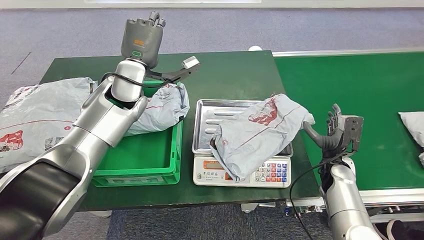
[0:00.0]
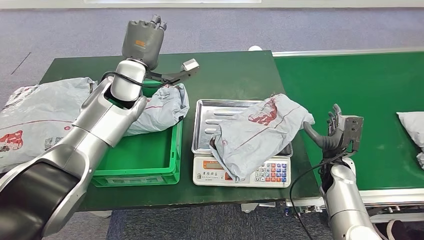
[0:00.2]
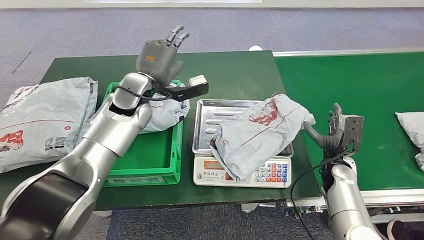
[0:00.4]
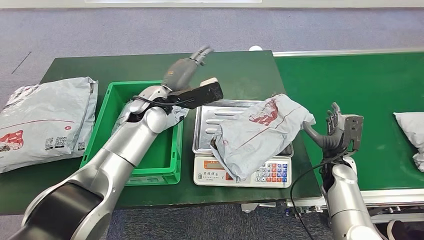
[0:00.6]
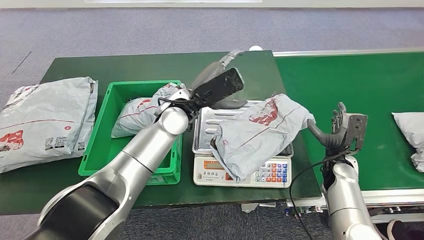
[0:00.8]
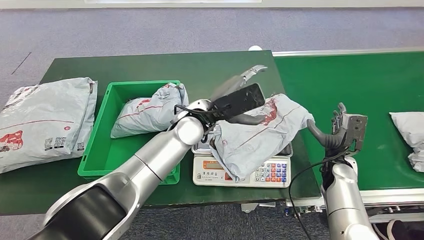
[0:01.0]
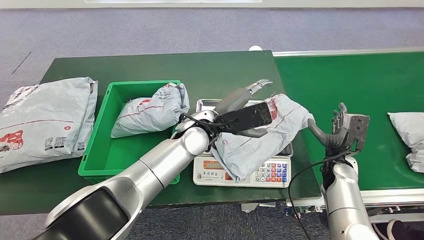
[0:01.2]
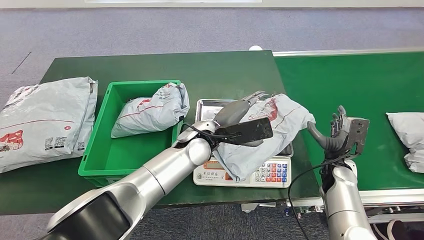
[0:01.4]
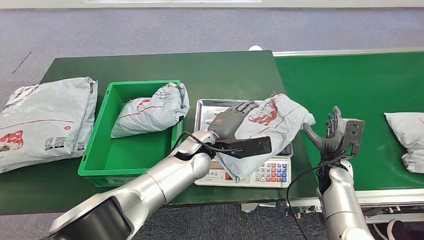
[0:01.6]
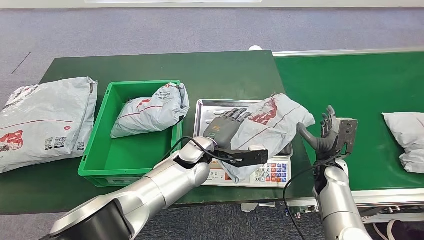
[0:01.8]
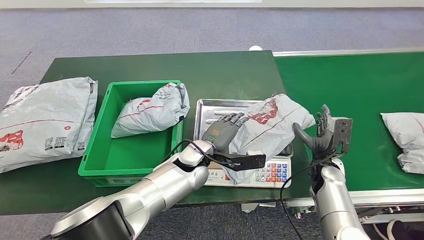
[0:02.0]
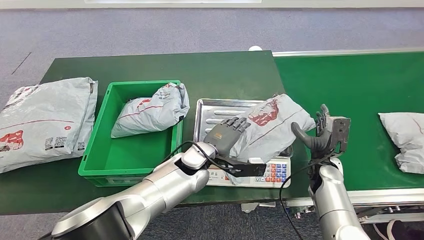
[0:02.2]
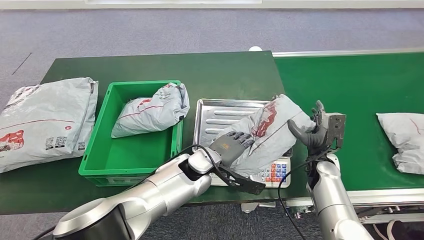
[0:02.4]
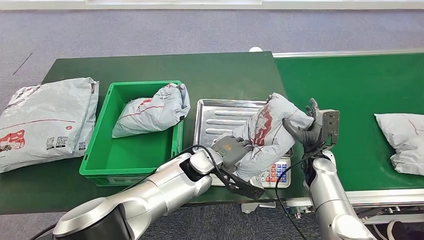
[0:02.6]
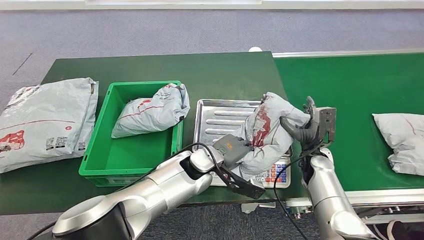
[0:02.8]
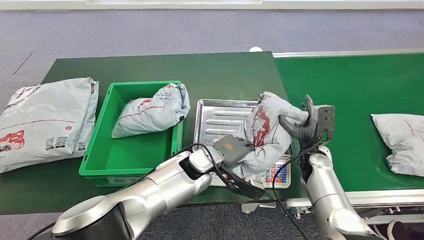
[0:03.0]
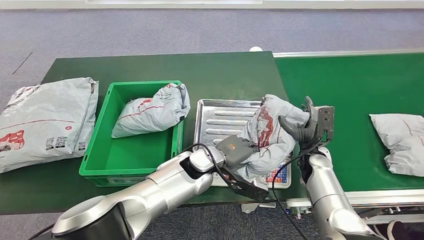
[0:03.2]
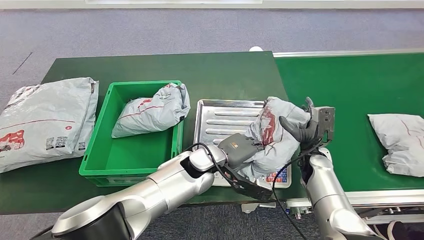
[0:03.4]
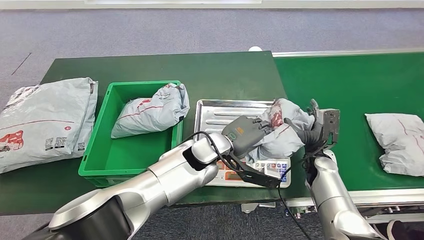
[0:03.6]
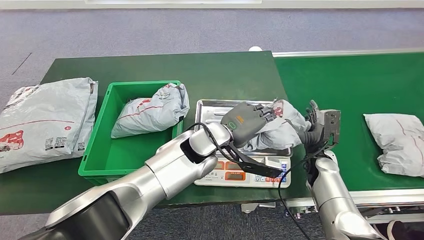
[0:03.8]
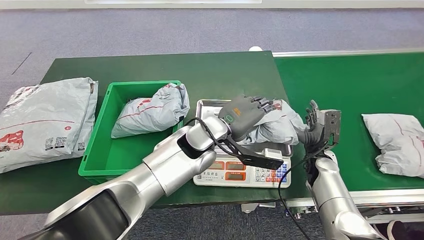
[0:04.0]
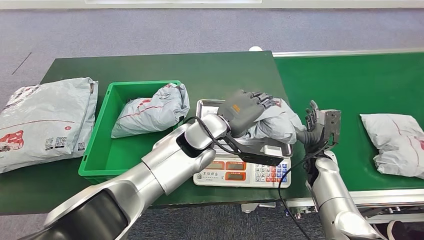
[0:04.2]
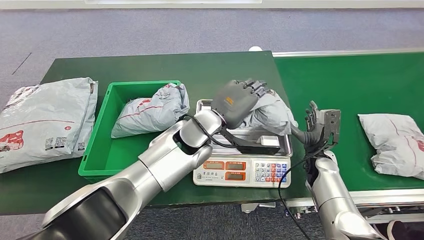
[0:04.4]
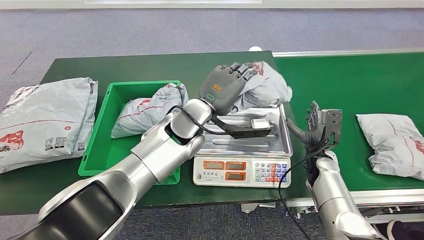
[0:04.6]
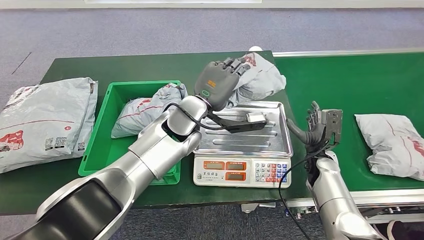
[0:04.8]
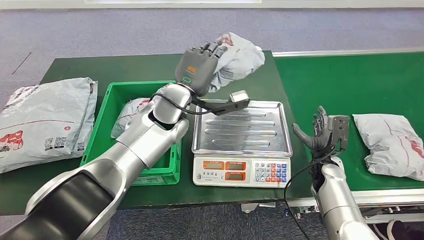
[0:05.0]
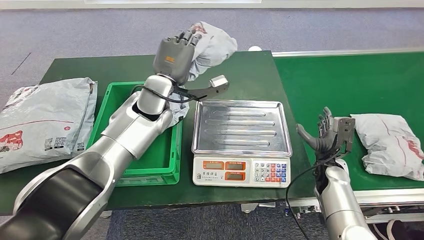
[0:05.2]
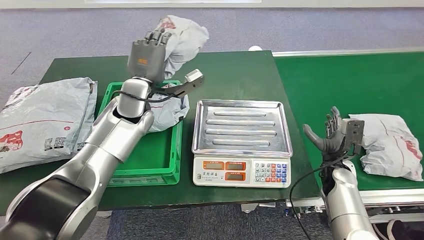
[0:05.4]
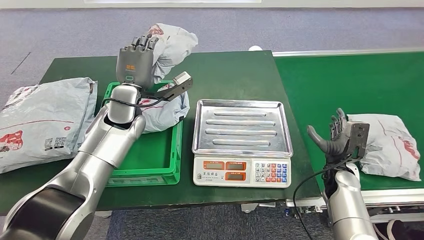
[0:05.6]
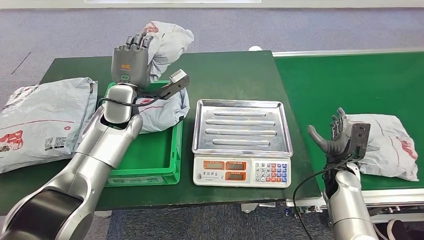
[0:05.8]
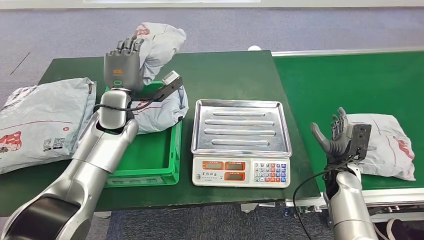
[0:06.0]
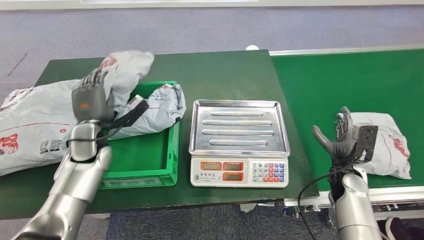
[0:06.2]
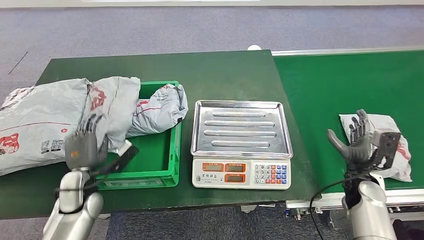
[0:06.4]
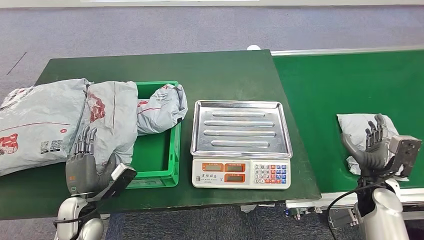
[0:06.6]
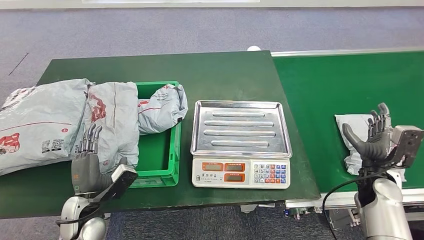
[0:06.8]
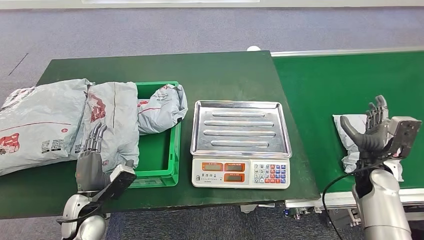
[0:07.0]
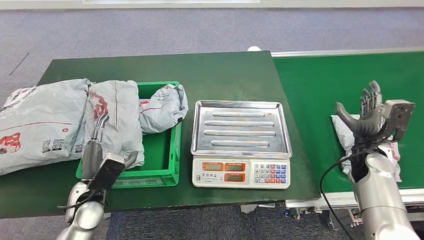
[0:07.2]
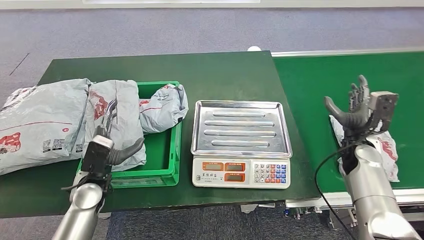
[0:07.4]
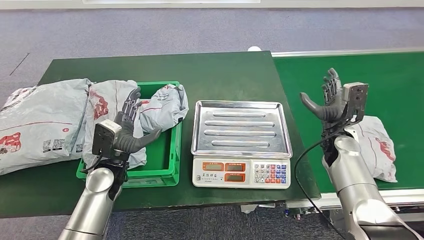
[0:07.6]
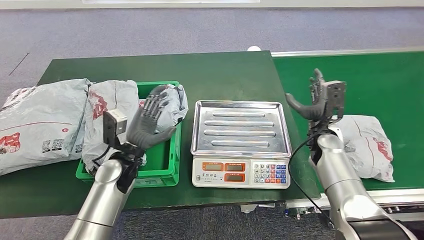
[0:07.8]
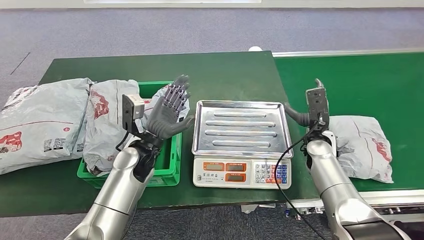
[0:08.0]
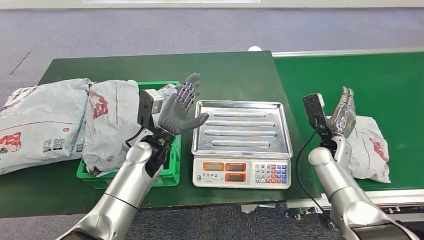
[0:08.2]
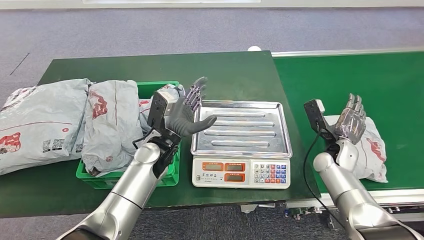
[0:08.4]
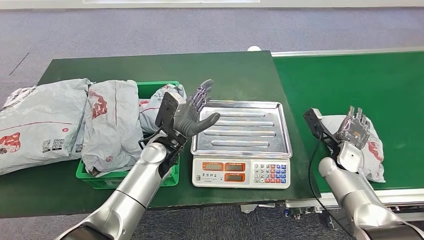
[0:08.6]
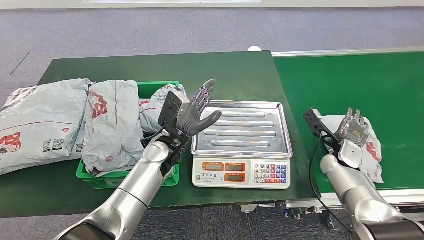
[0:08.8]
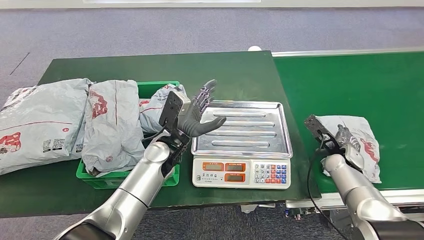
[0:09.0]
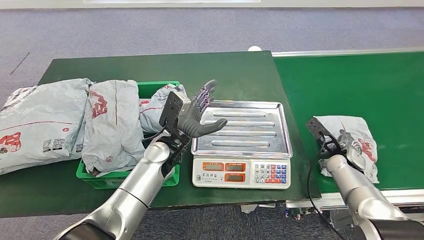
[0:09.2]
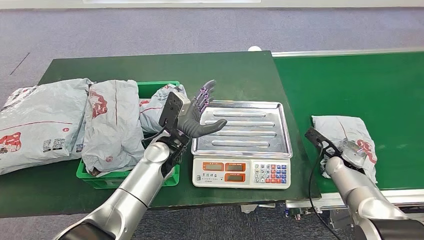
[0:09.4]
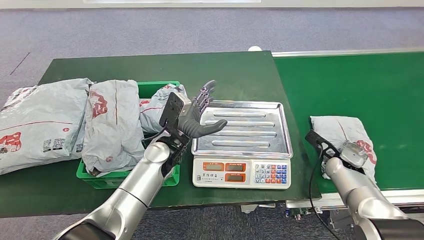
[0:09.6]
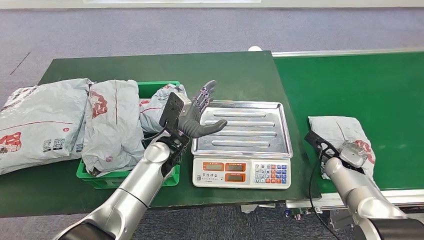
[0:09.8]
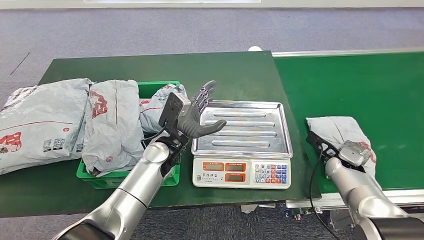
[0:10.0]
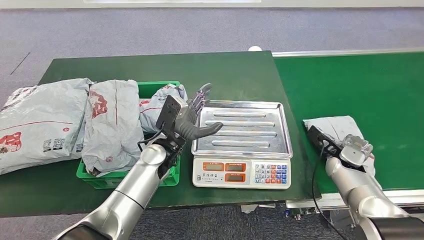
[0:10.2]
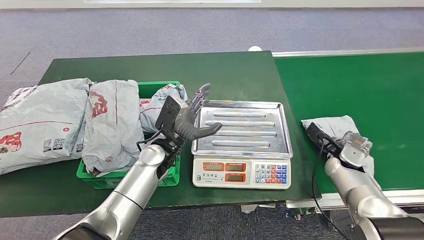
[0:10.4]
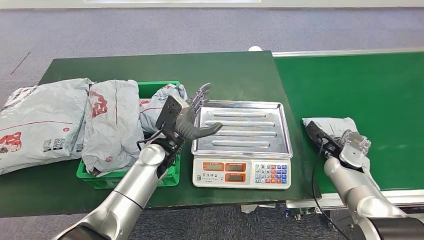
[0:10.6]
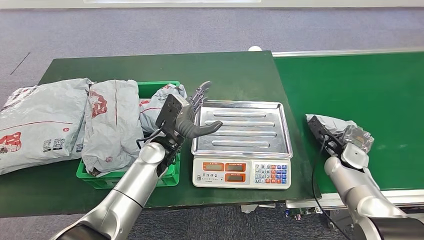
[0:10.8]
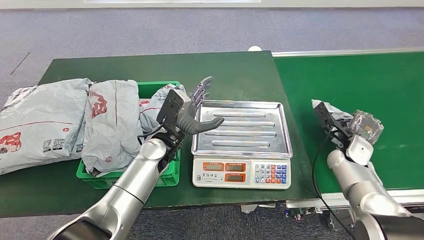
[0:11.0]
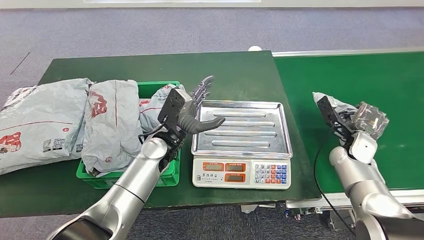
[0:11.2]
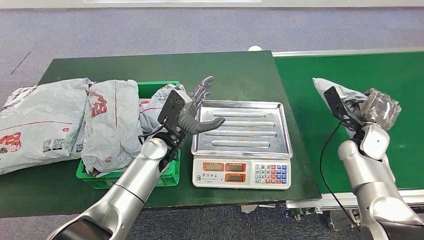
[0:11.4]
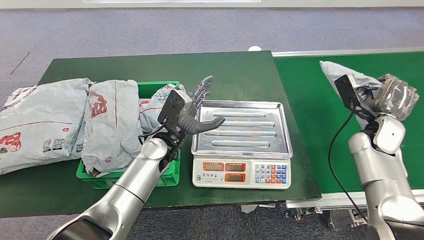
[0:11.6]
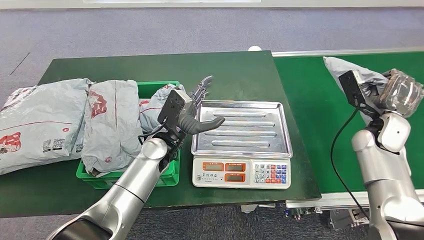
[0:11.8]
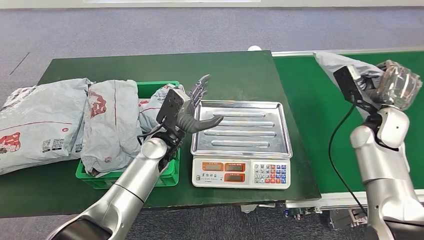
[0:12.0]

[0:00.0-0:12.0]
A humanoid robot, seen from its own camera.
Step, 0:02.0 to 0:04.6: Pick up the parcel from the inbound machine.
Step, 0:04.8 to 0:07.8: Place the parcel into the delivery box.
Step, 0:10.2 to 0:11.8: Pick up the parcel from the conveyor belt.
0:07.6 to 0:09.0: The left hand goes approximately 15 cm to the right, while the right hand heads downward, covering about 5 cm.
0:10.4 to 0:12.0: The right hand shifts about 15 cm upward.

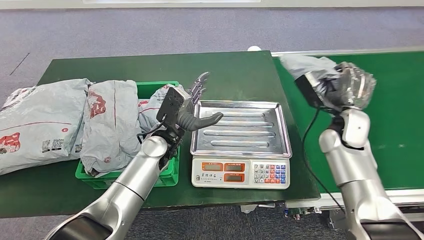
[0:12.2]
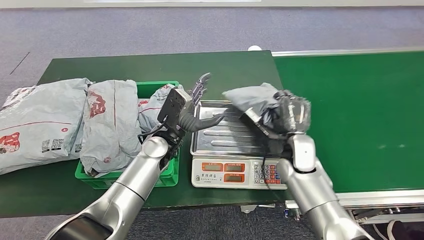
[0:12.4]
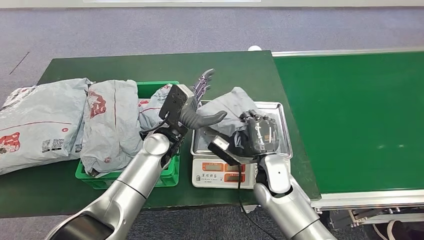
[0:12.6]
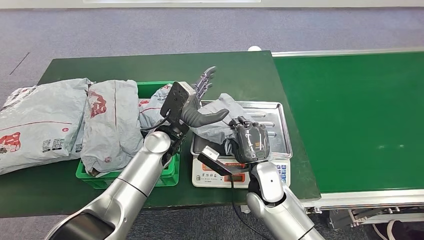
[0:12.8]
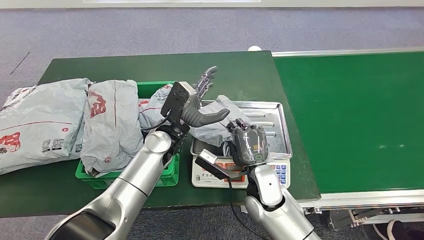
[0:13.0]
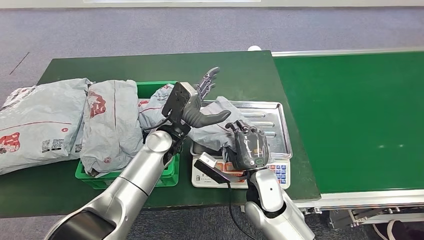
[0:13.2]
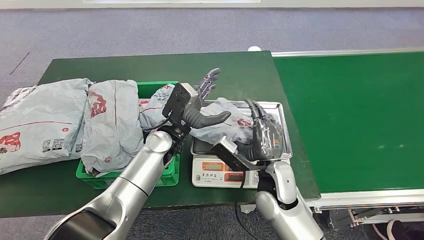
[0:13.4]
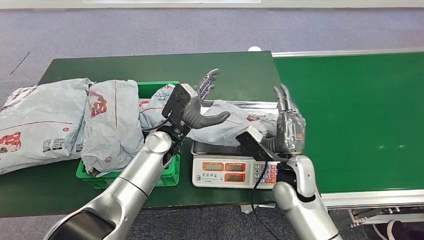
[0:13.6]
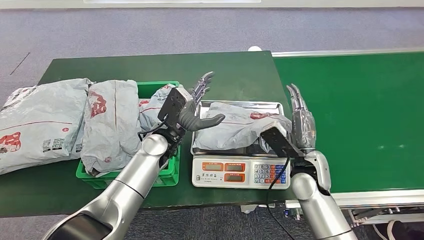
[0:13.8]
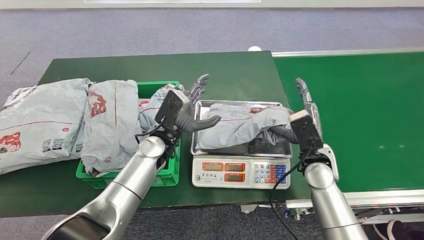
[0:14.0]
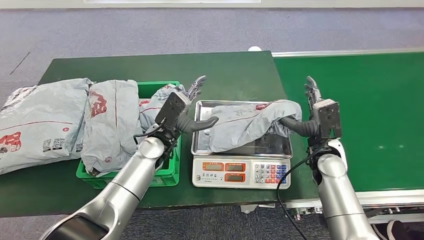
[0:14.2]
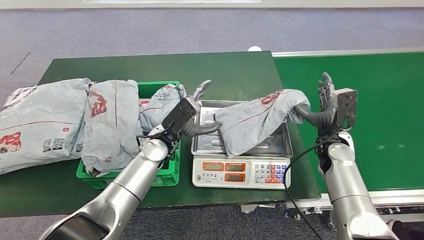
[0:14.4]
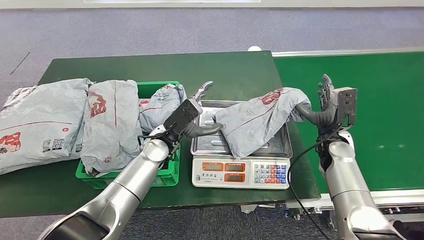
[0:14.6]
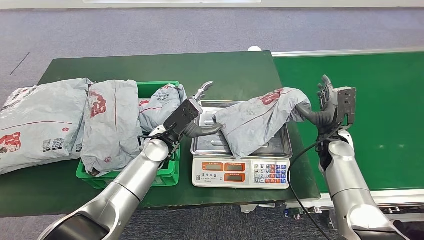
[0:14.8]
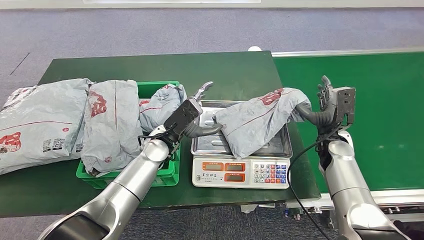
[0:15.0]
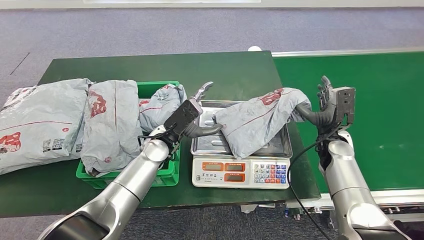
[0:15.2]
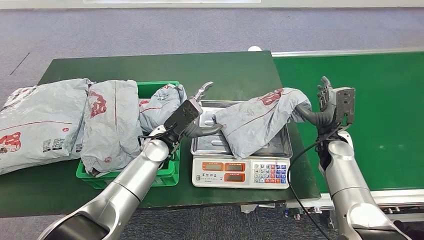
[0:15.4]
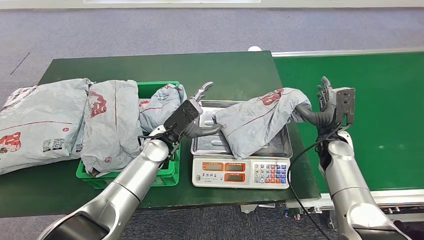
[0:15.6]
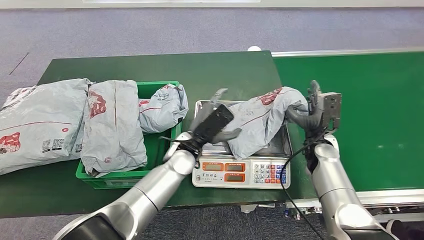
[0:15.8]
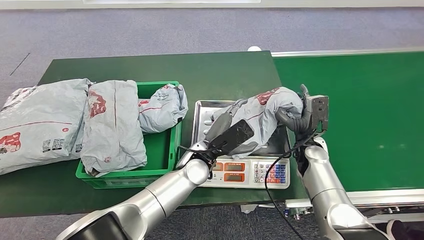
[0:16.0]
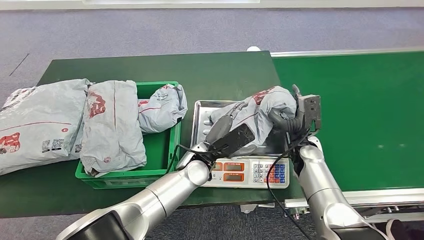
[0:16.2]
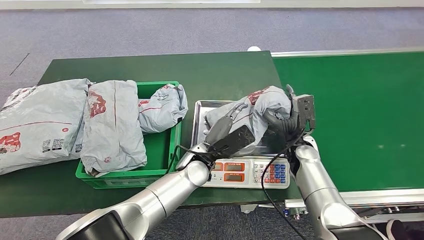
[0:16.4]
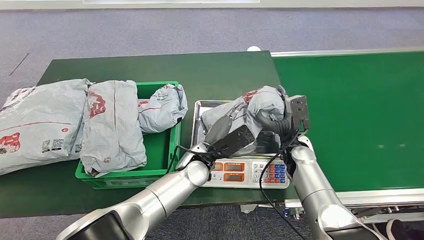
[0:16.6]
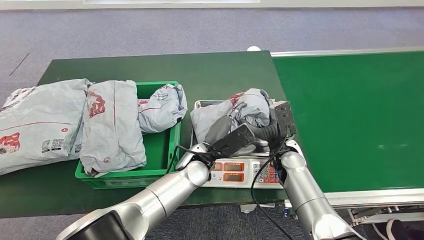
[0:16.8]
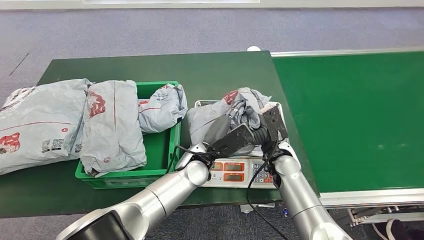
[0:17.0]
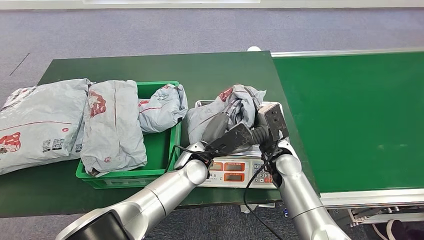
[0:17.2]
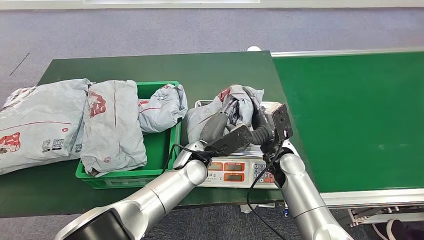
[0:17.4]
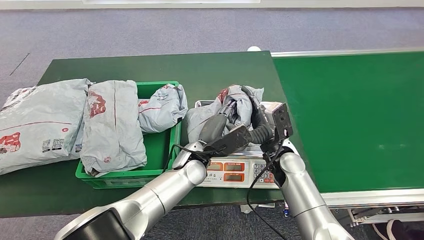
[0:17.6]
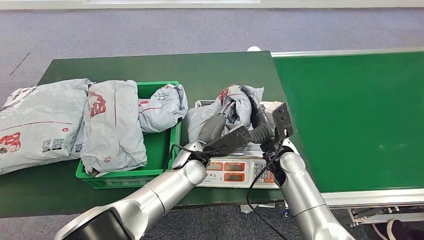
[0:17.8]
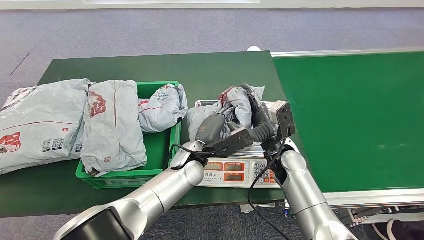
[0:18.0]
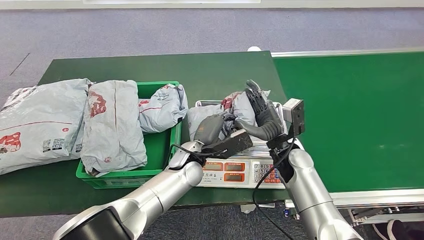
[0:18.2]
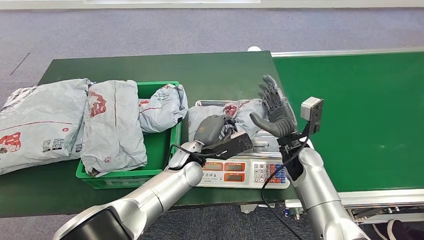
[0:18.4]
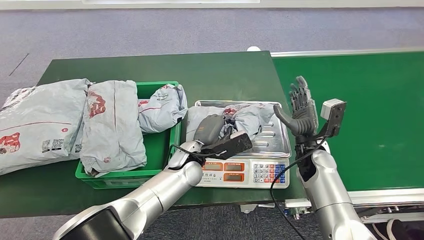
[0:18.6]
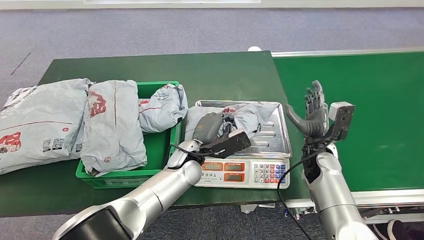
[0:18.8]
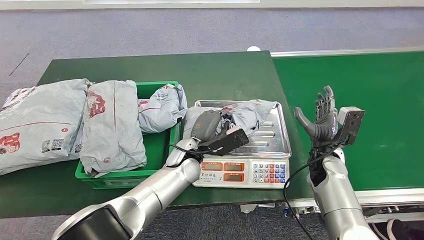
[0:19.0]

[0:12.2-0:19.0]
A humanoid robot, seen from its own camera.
Step, 0:12.2 to 0:14.2: Place the parcel onto the inbound machine.
0:13.6 to 0:15.0: The right hand heads to the right and forward, covering approximately 15 cm.
0:16.2 to 0:17.6: The right hand shifts roughly 10 cm to the left.
0:17.6 to 0:19.0: The right hand is displaced to the right by roughly 15 cm.
